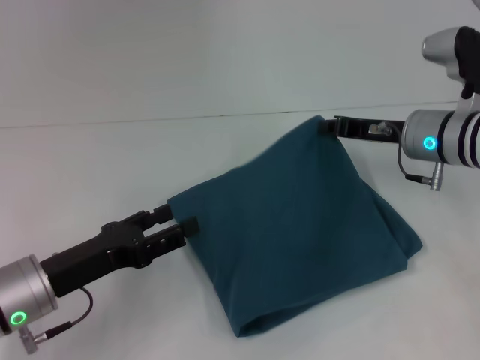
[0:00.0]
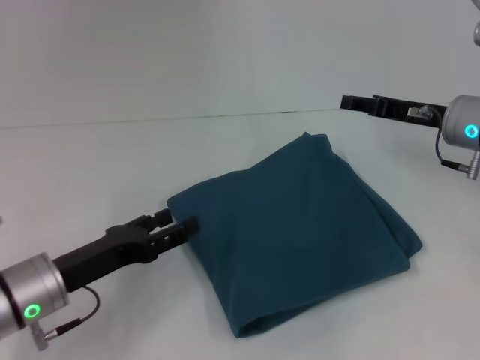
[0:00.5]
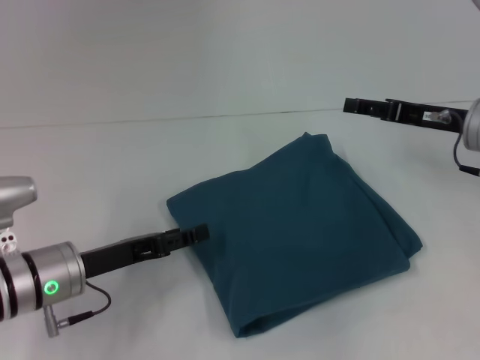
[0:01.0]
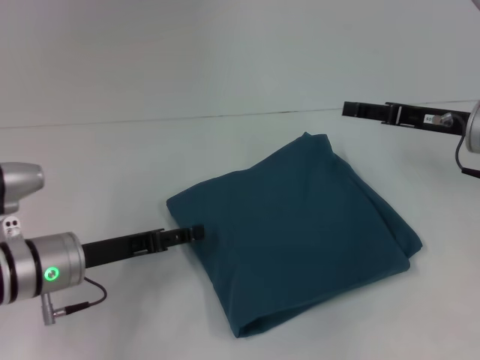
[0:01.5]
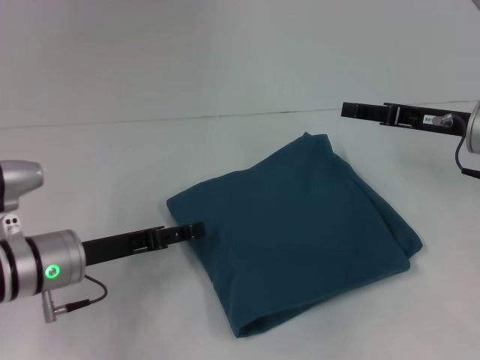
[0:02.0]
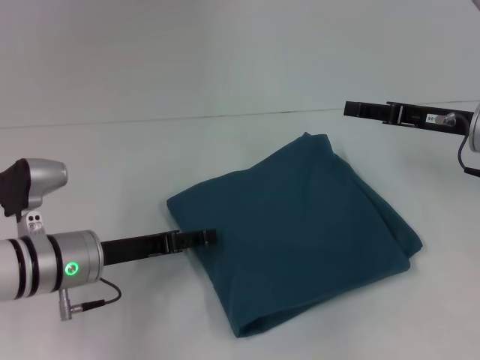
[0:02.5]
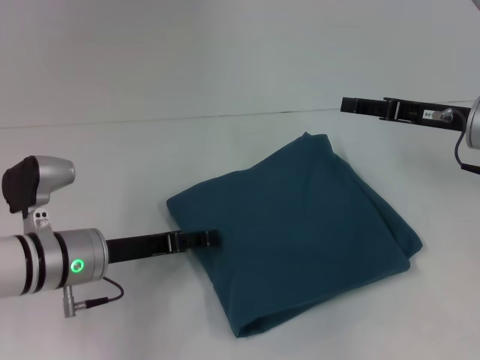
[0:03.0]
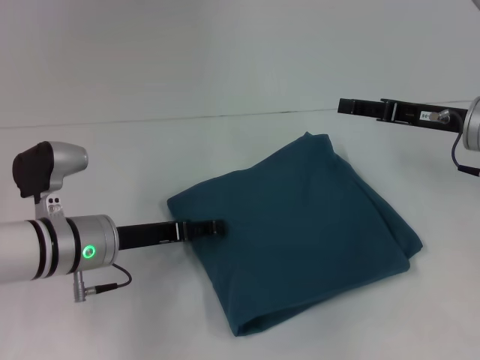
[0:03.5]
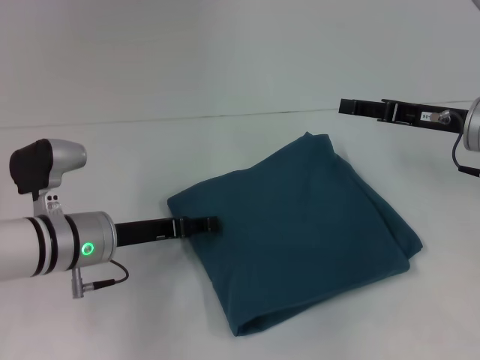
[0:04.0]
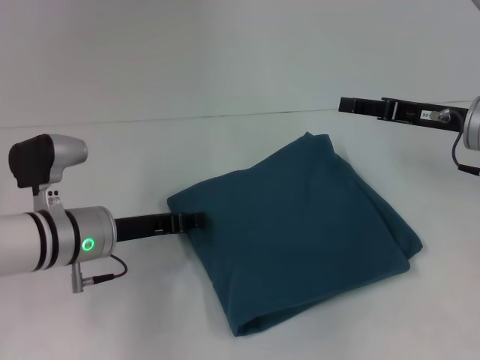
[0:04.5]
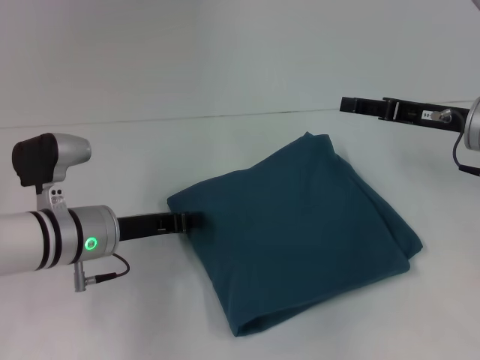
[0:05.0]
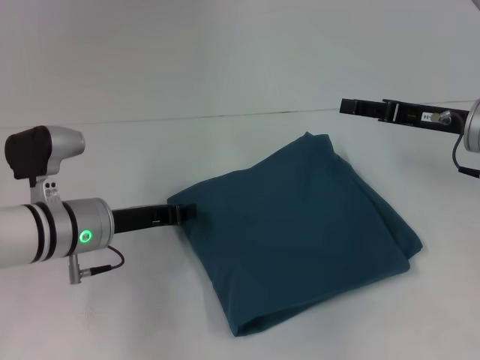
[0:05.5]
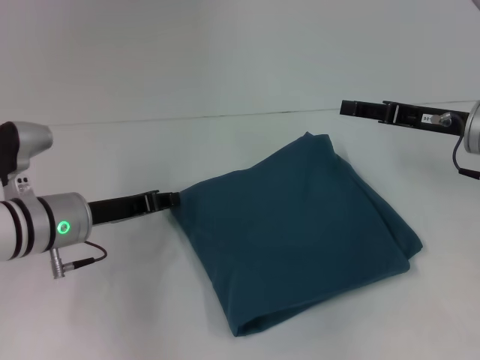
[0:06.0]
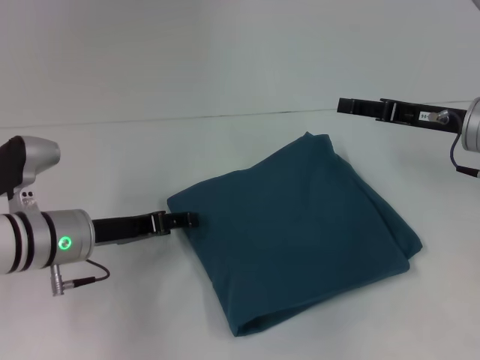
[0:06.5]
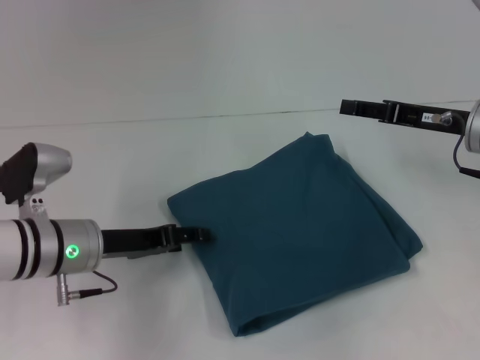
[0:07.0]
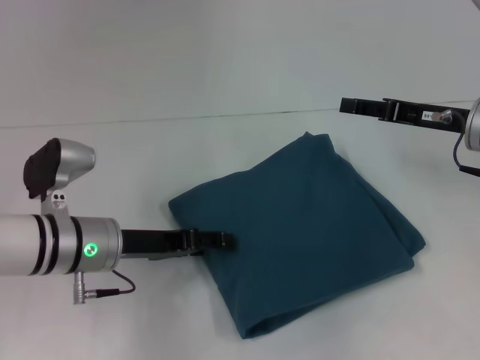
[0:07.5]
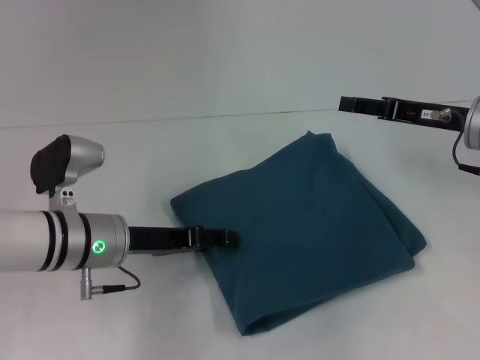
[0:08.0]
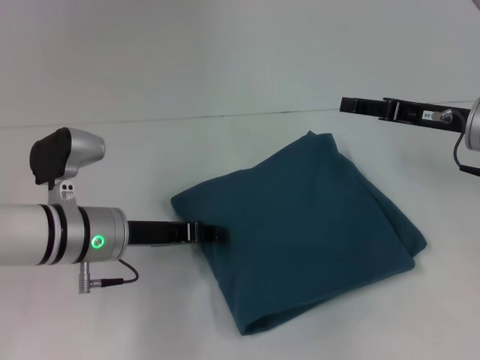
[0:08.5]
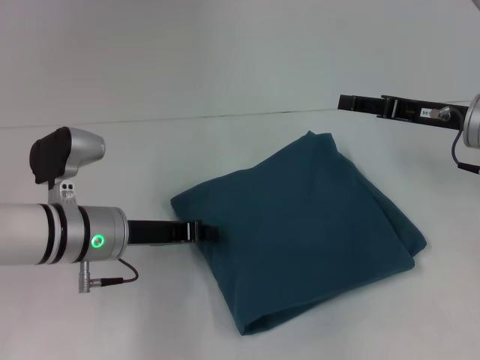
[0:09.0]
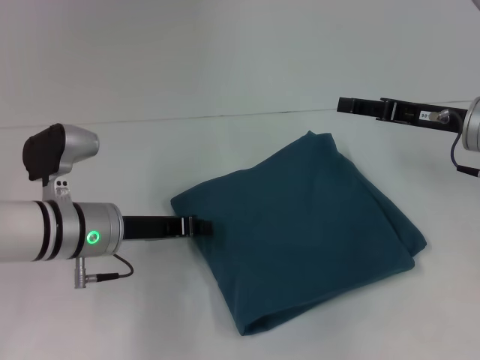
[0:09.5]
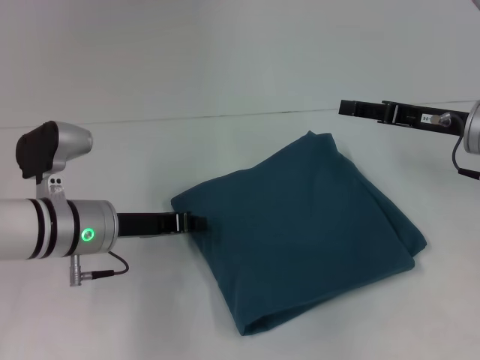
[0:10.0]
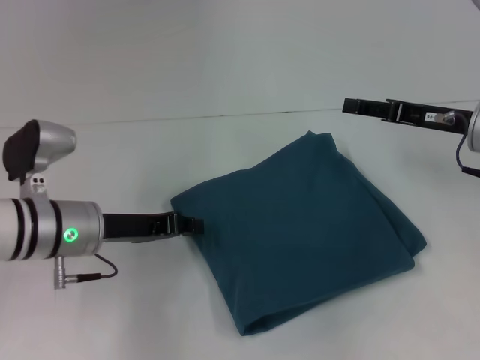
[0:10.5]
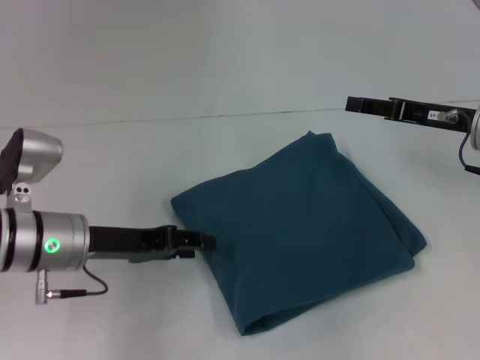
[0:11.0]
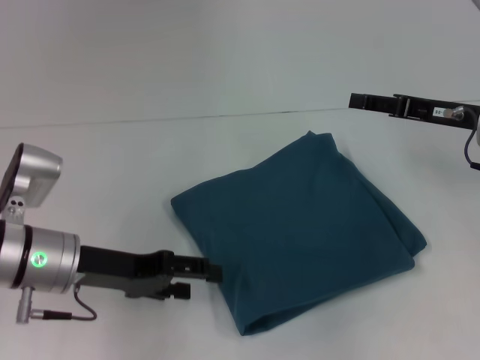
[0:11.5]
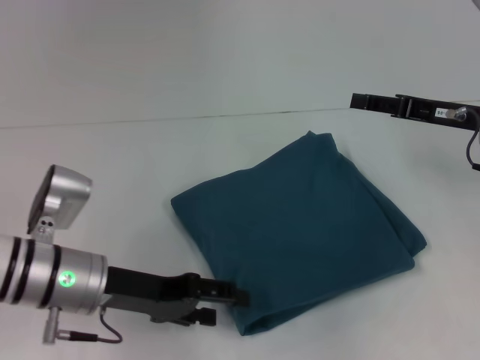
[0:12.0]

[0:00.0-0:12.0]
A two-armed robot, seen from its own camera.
0:00.0 to 0:02.0: The left gripper shifts by approximately 5 cm. The right gripper travels to the right by approximately 5 cm, and opens its fingers.
0:02.0 to 0:04.0: The grippers move only a little.
0:04.0 to 0:06.0: The left gripper closes.
0:06.0 to 0:08.0: The left gripper opens up.
0:08.0 to 0:10.0: The left gripper closes.
0:10.0 to 0:12.0: The left gripper opens its fingers.

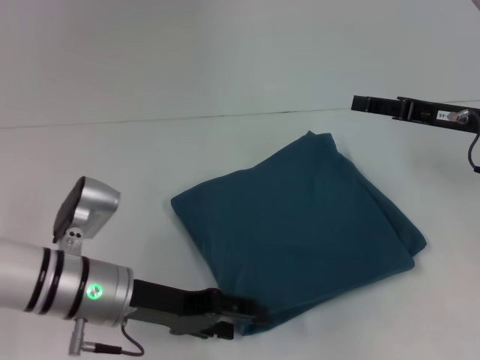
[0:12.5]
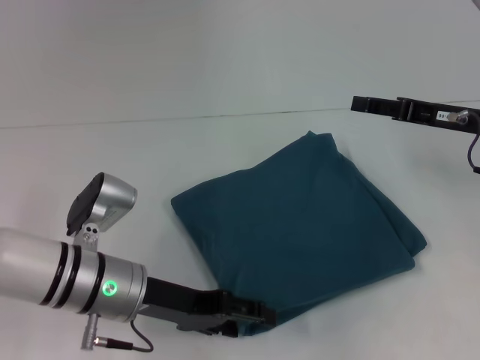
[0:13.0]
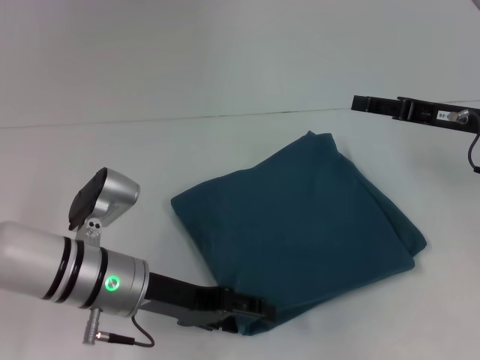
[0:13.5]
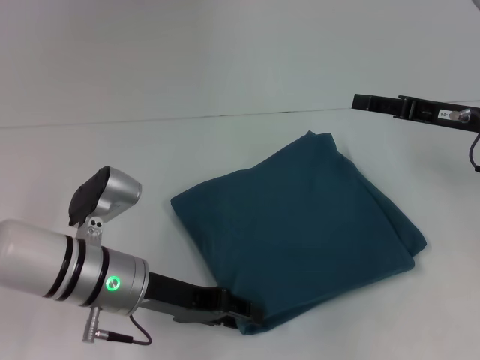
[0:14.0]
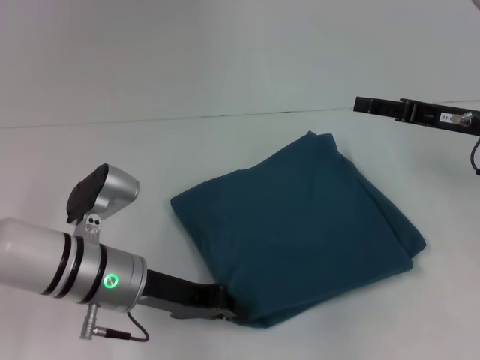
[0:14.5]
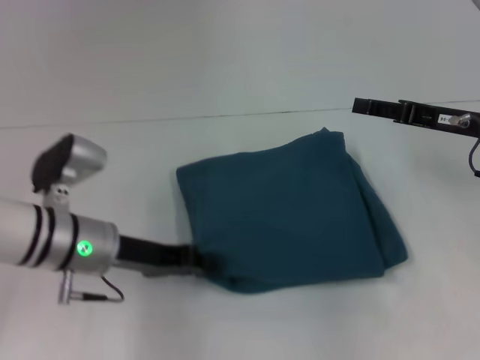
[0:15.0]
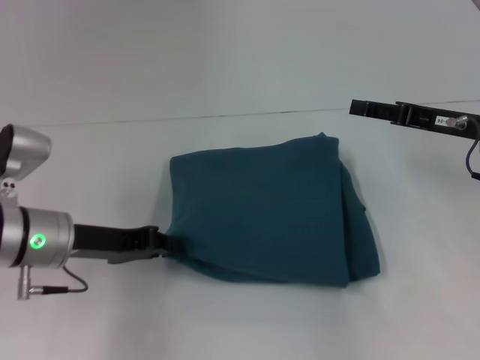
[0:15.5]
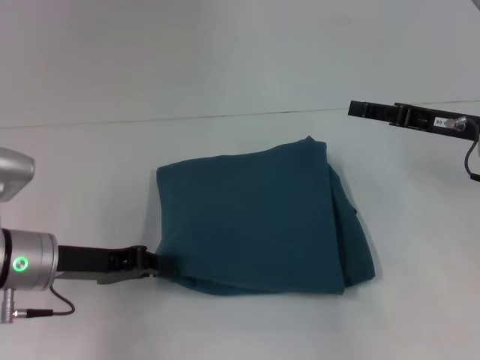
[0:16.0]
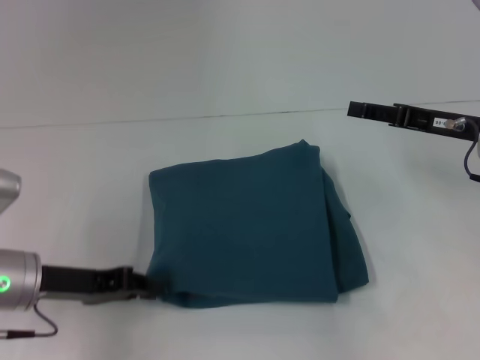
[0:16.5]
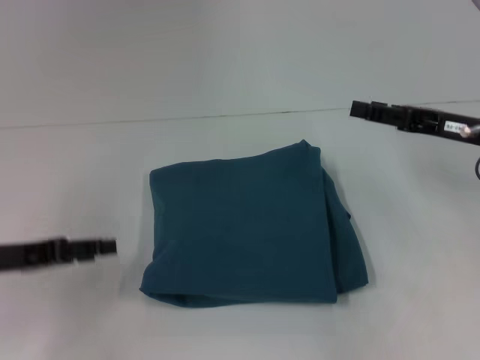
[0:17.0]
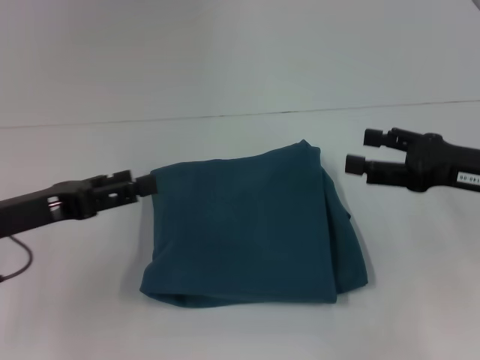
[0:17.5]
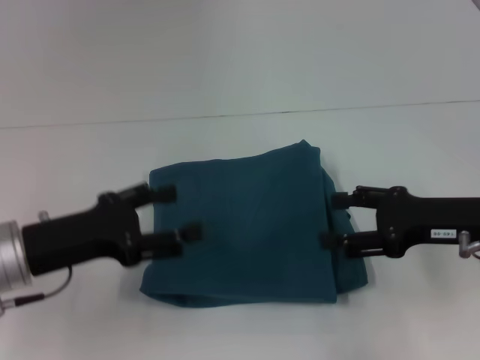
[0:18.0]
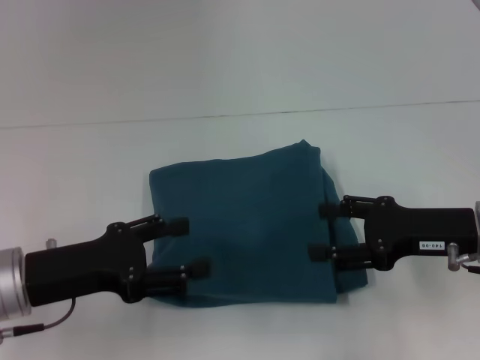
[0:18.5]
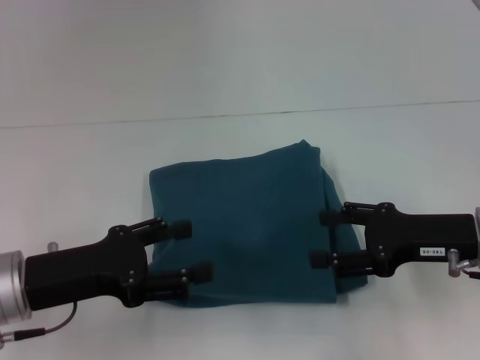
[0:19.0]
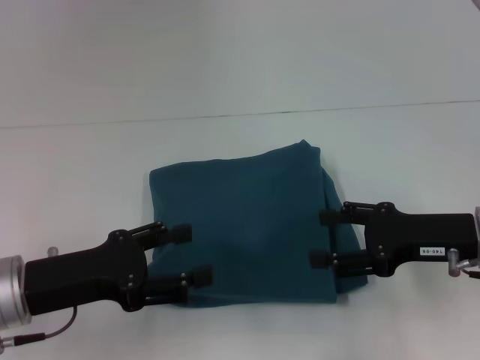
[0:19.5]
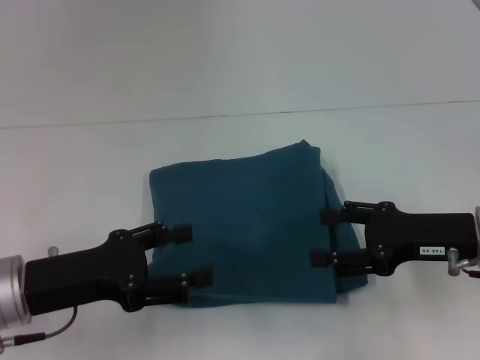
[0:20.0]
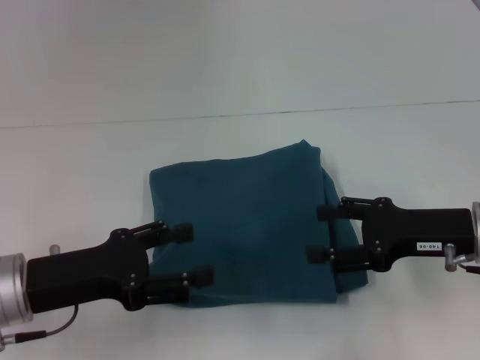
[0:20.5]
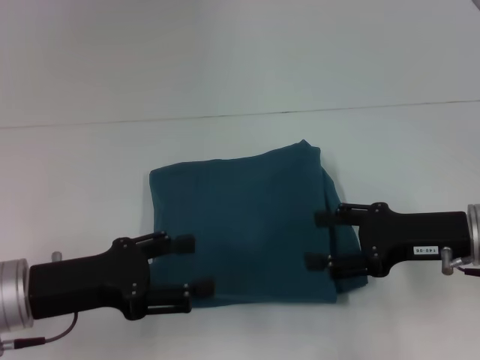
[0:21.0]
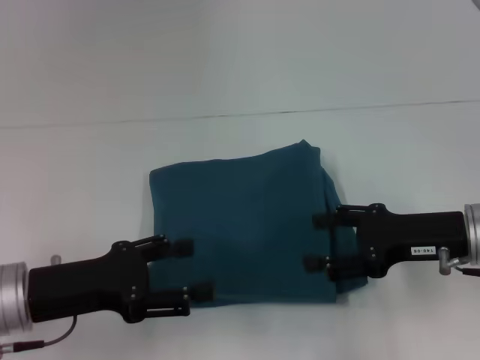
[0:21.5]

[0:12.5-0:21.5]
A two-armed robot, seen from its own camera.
0:12.5 to 0:14.5: The left gripper closes.
0:14.5 to 0:17.0: The left gripper shifts approximately 15 cm to the left.
0:17.0 to 0:19.5: The left gripper shifts roughly 5 cm to the right, and opens its fingers; the right gripper moves backward, about 5 cm.
0:19.5 to 0:21.5: Both grippers stay put.

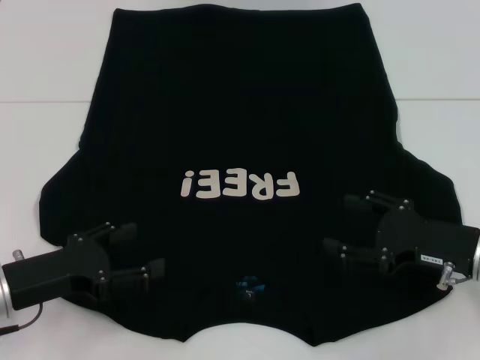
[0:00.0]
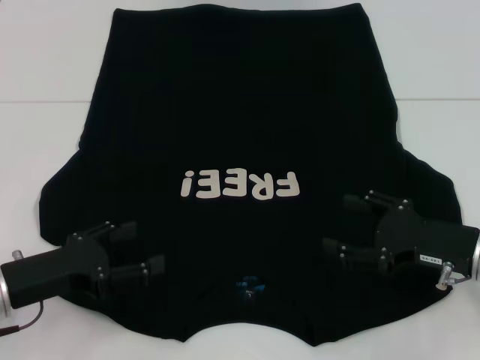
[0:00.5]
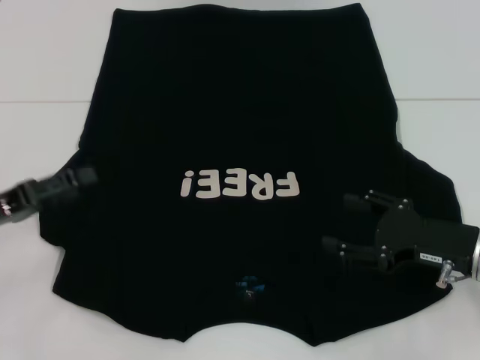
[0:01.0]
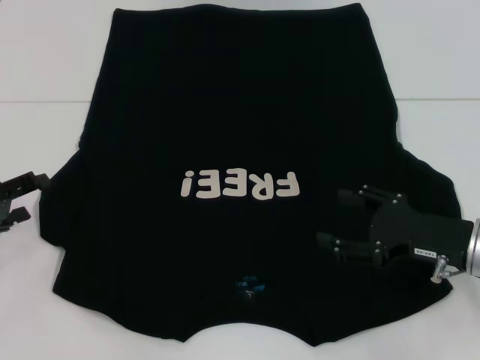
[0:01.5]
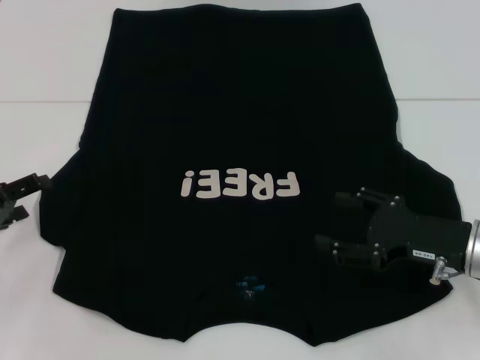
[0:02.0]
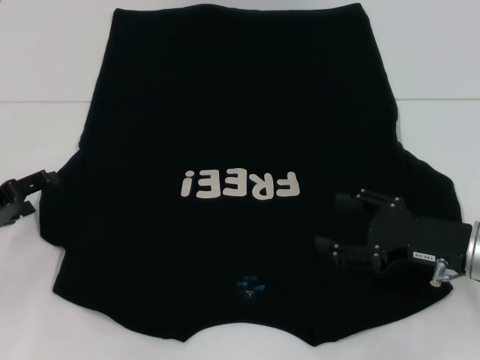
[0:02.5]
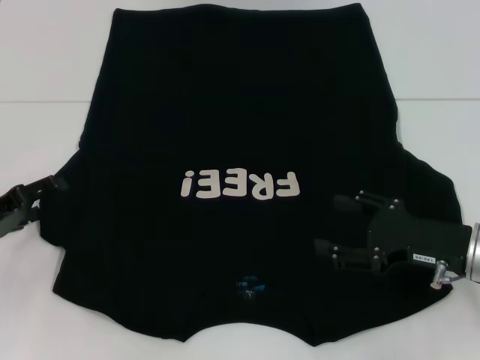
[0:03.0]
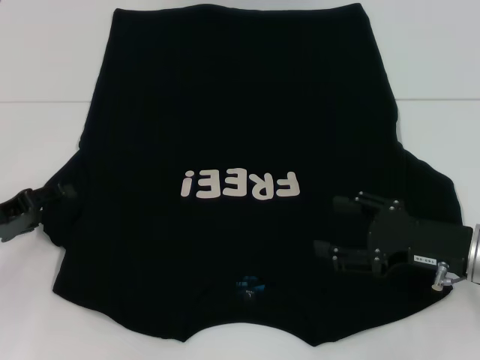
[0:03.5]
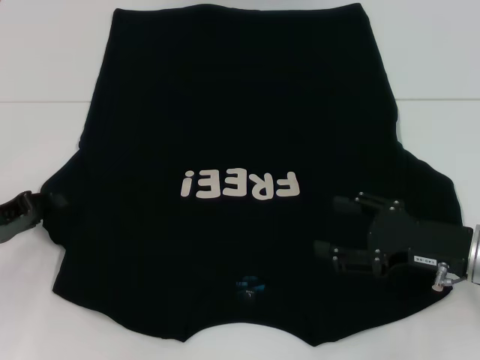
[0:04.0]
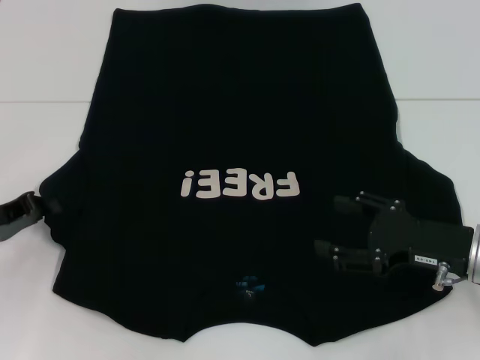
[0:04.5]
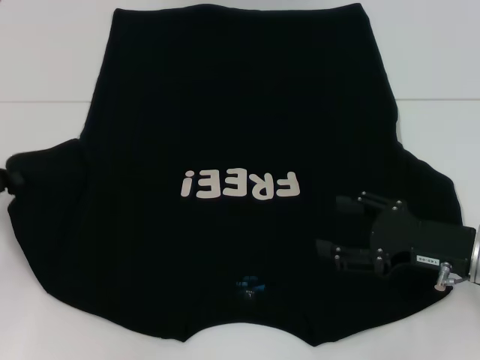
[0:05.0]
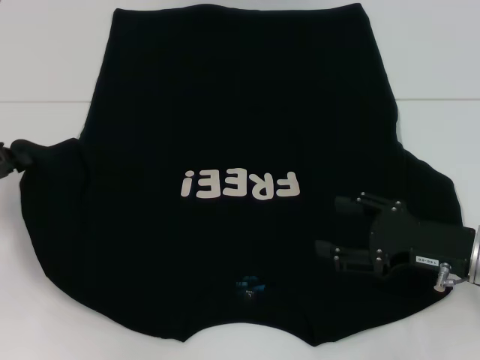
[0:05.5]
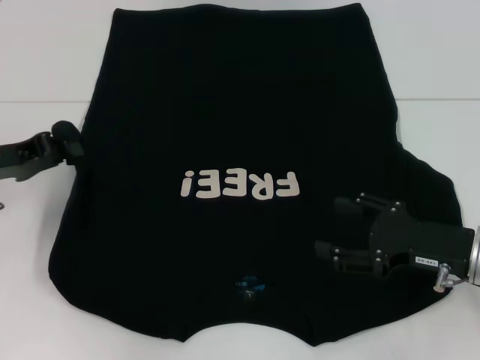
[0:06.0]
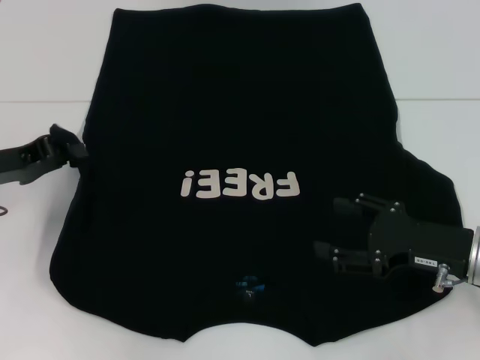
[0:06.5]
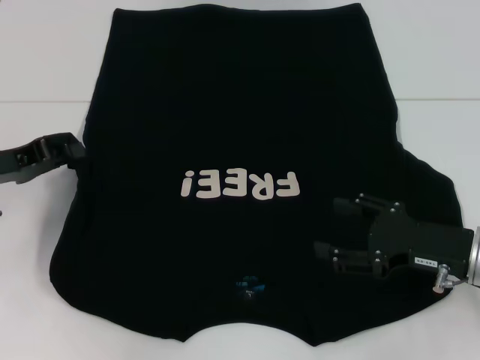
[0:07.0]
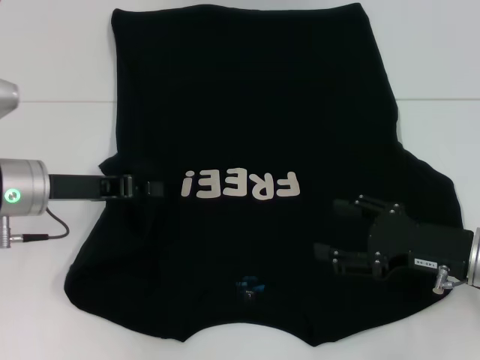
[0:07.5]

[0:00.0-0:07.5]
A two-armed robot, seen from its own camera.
0:00.0 to 0:02.0: The left gripper goes roughly 10 cm to the left.
0:02.0 to 0:04.0: The left gripper closes.
0:04.0 to 0:05.5: The left gripper ends up roughly 5 cm from where it was, and closes its fingers.
0:05.5 to 0:07.5: The left gripper goes roughly 10 cm to the right.
